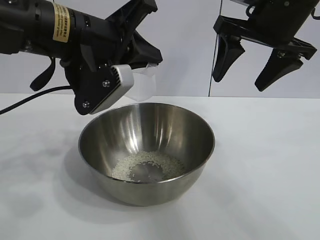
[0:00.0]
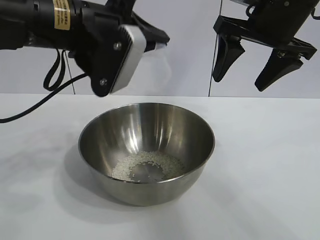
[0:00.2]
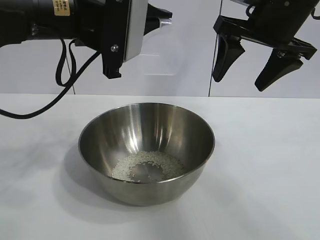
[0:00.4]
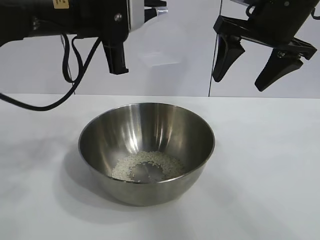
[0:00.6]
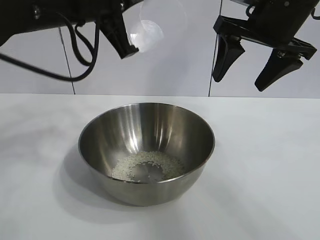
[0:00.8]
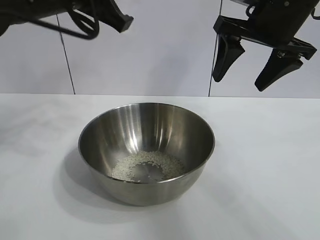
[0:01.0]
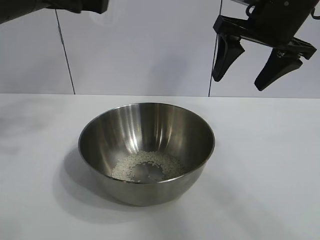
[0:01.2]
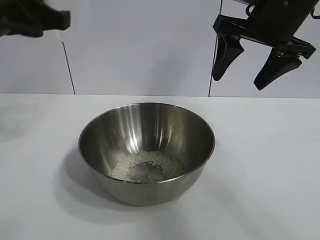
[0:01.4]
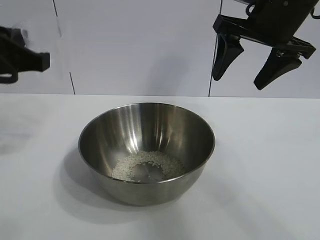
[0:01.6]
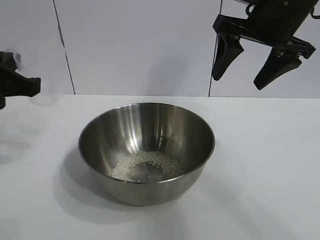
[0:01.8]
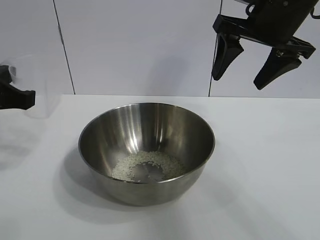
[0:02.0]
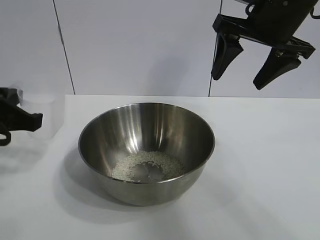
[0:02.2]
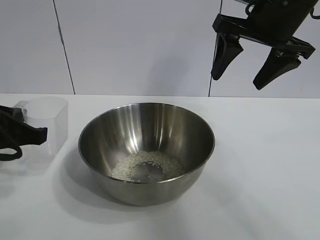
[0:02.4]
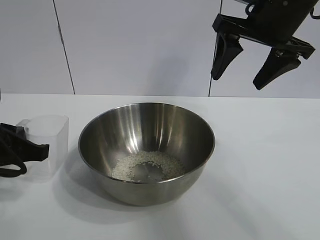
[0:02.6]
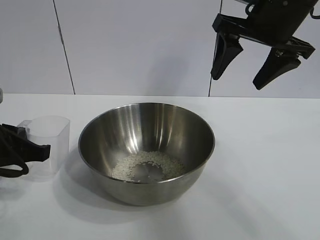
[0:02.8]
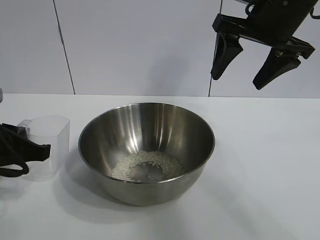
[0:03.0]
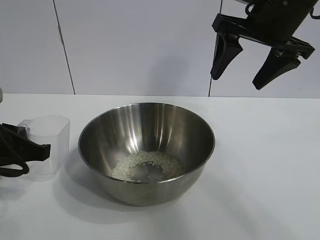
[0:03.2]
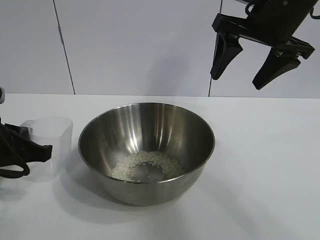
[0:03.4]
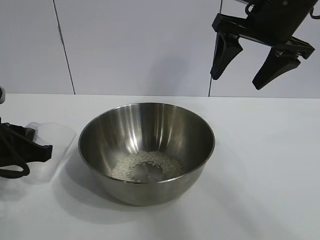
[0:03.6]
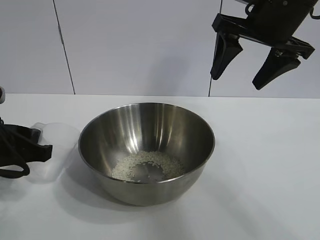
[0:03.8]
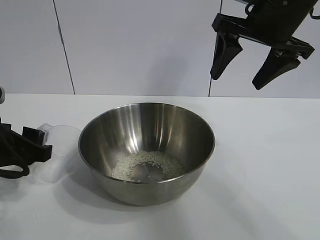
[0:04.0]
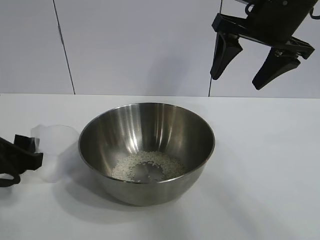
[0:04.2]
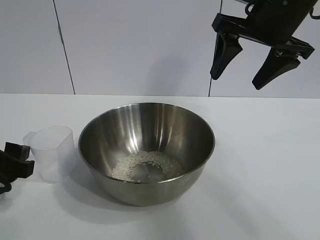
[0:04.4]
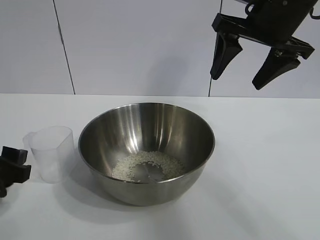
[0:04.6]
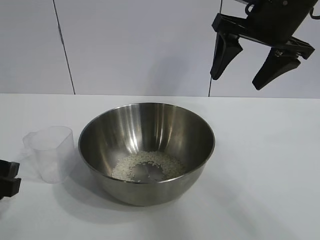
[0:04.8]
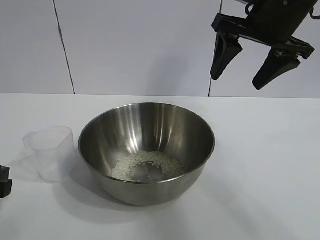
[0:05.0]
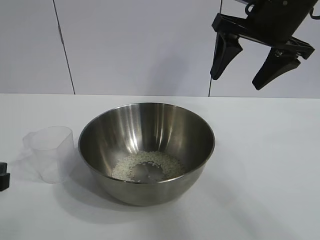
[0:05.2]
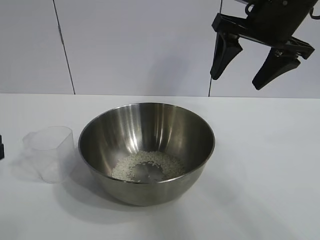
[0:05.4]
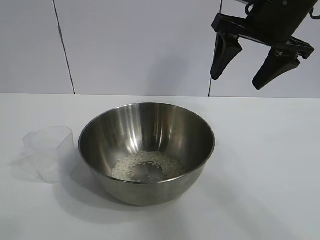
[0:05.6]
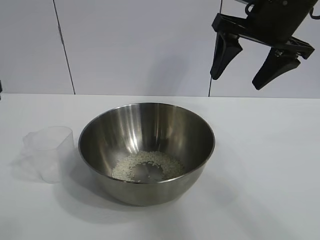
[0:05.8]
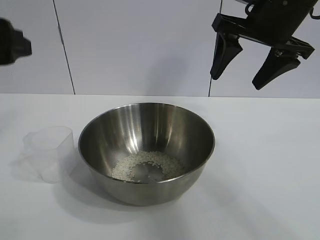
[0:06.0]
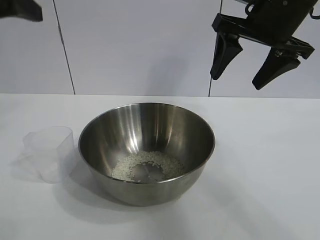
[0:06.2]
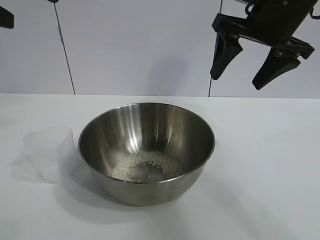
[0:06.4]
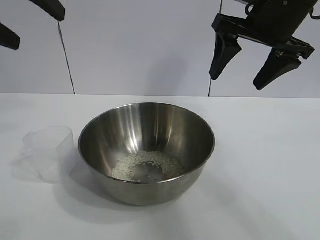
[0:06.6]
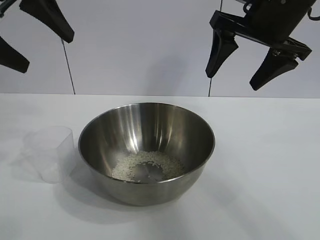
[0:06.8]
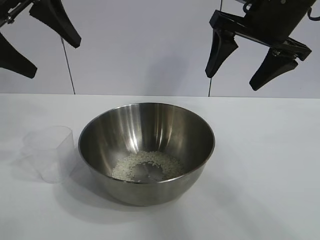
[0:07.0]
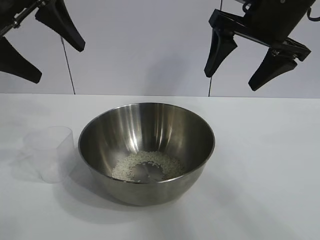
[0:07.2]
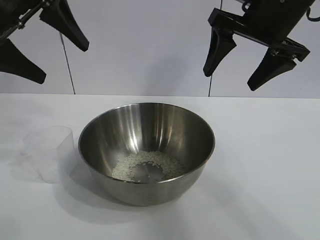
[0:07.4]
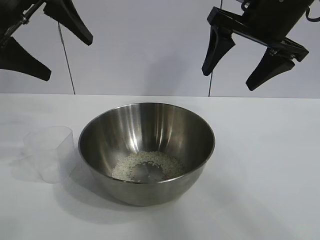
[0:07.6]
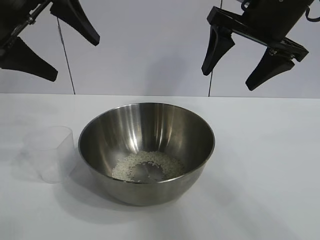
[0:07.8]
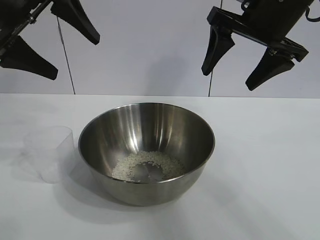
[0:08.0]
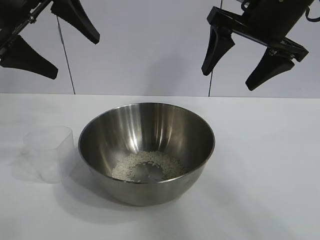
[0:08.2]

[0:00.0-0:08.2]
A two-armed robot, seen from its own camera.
Task of the whole recording: the right gripper grasp the rice container and place it in the center of the table, the left gripper grasp the rice scoop and pour the rice into the rice container.
Step, 0:00.0 to 0:04.4: Place the cup on the table with the left gripper.

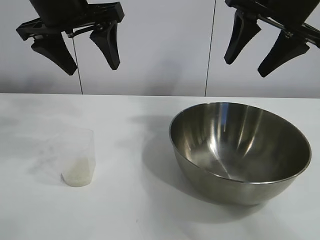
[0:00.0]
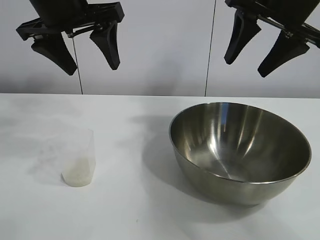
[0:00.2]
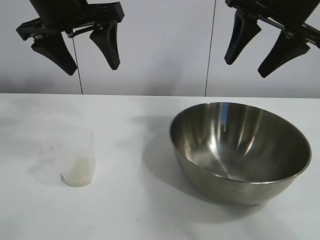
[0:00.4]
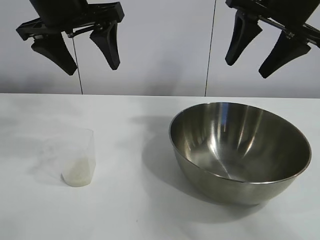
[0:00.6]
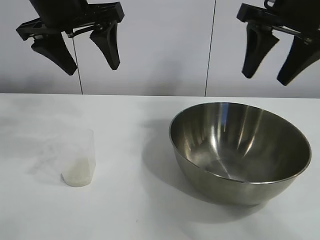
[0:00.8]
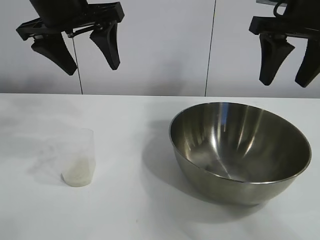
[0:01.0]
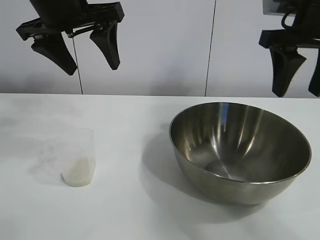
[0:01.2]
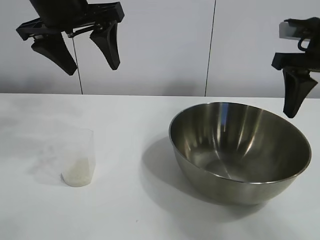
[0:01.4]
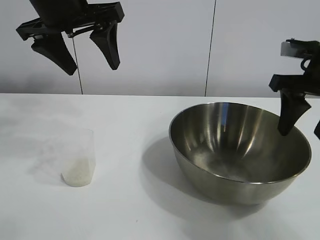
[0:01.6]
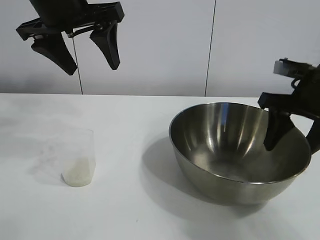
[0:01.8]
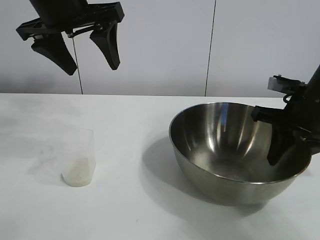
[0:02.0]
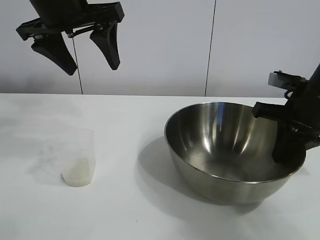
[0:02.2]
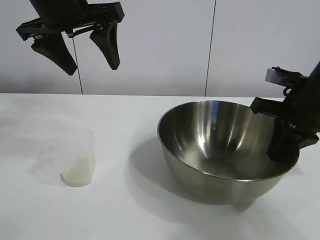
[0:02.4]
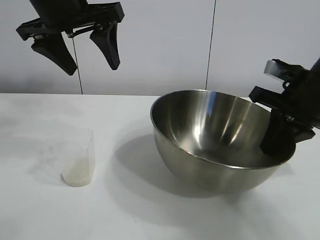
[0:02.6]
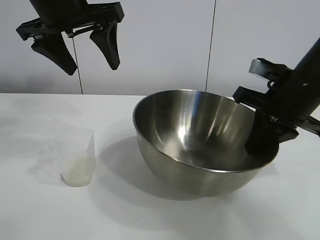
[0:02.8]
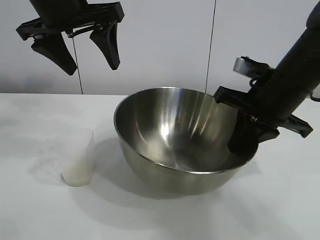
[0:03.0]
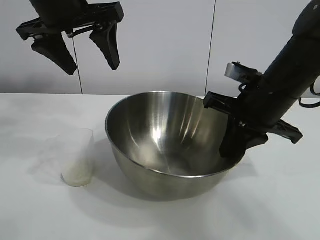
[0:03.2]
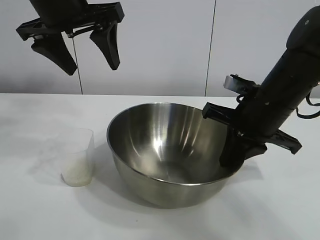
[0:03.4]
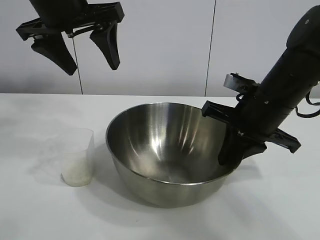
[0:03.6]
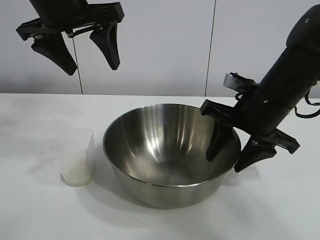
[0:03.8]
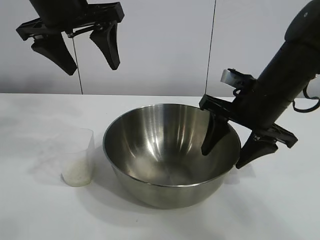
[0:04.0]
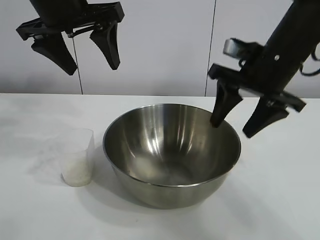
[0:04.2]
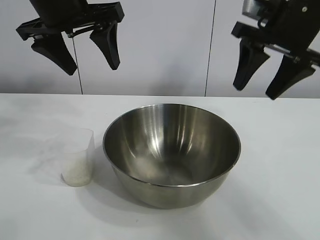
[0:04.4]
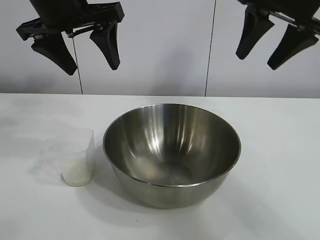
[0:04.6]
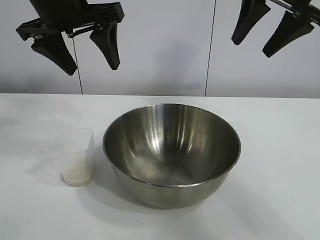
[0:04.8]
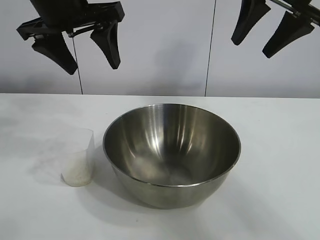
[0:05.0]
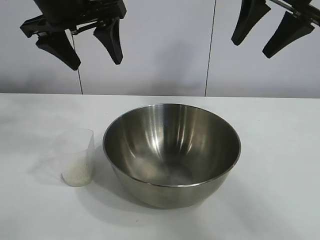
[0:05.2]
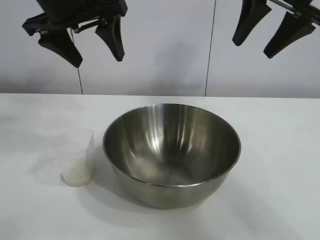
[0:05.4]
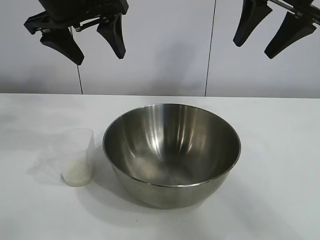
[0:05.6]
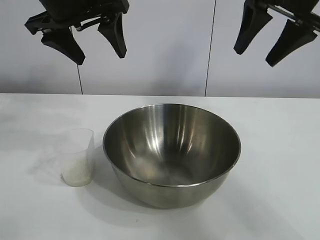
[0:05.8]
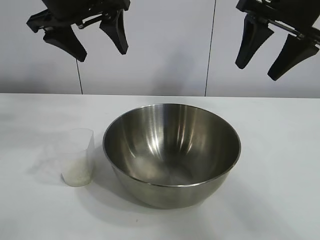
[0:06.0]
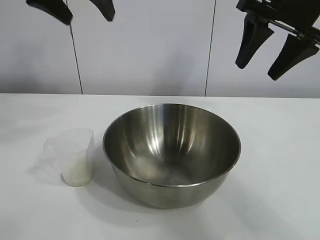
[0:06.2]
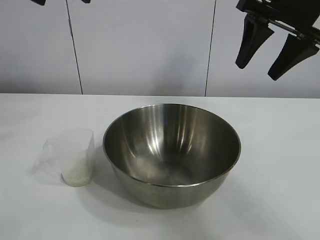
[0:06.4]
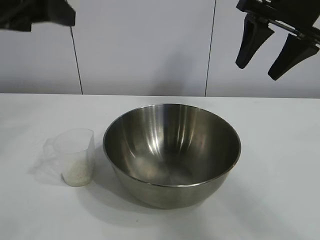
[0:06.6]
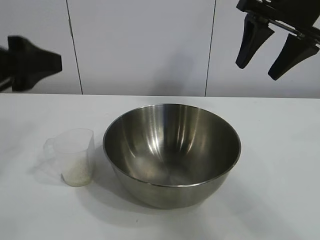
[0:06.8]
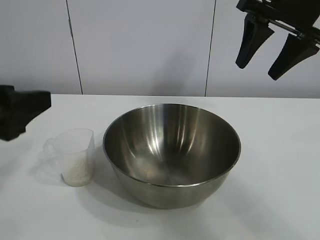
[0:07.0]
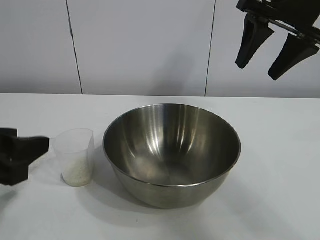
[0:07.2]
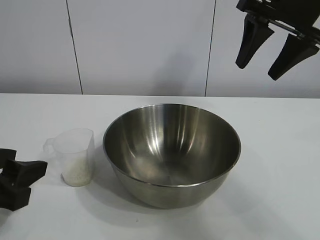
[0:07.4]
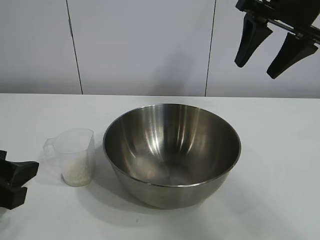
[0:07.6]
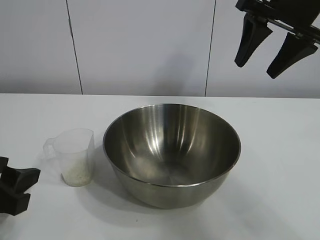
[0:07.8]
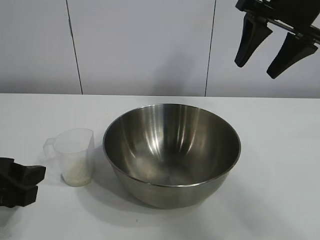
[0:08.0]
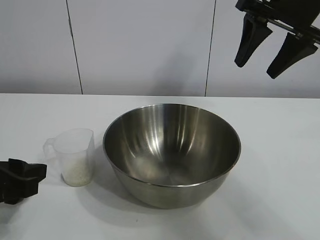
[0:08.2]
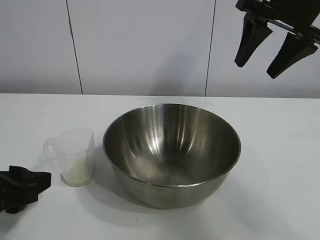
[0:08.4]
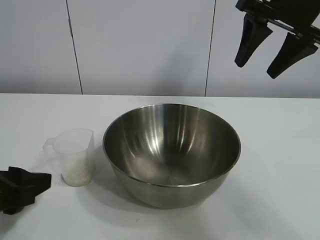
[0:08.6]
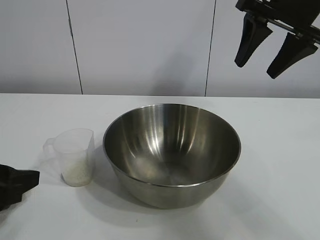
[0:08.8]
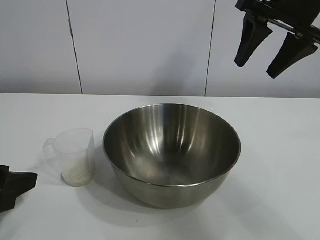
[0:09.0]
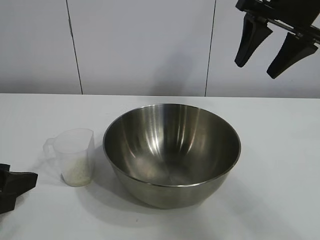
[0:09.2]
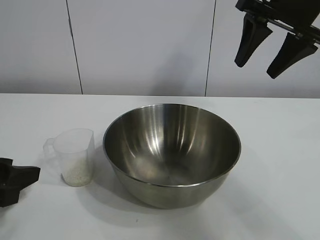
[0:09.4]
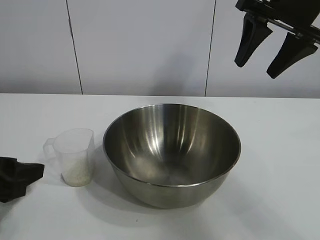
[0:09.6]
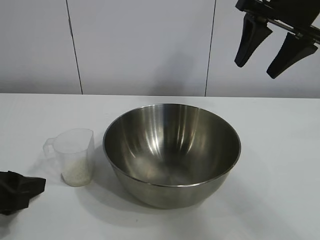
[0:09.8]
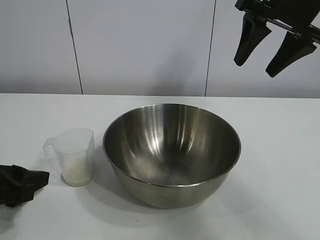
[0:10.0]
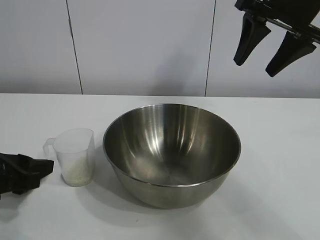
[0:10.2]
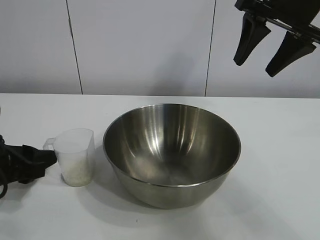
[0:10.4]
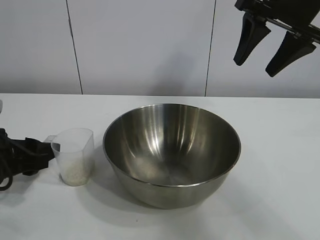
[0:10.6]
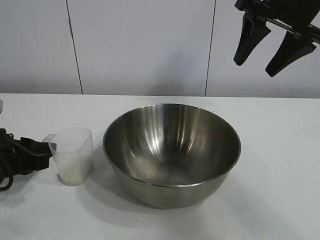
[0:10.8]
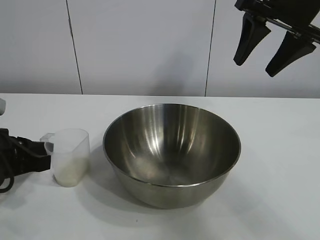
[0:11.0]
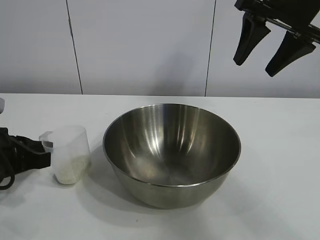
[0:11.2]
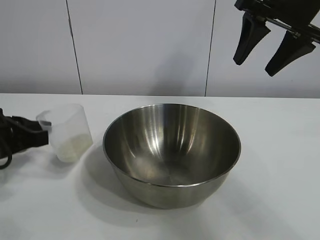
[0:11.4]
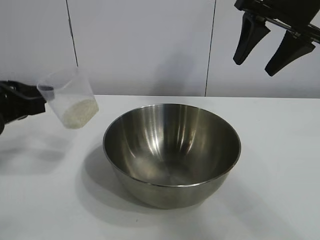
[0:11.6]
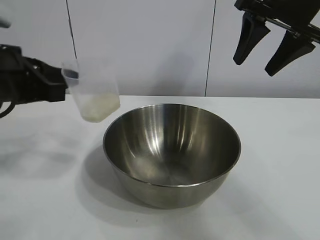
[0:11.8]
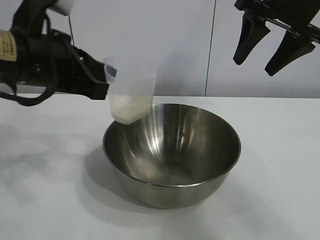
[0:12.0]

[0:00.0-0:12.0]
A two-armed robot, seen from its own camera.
Task of the whole recording: the right gripper grasp the rice container and place it in the center of the table, the left gripper grasp the rice scoop and pour the rice into the rice container.
Step, 0:00.6 to 0:04.0: Move the bowl in the center of view with right gripper.
Step, 0:04.2 to 0:11.0: Grasp the cup with rice in it with left gripper.

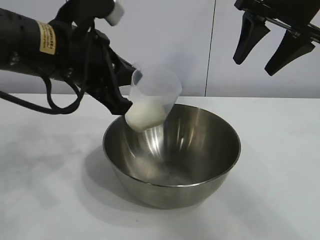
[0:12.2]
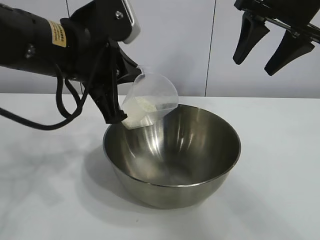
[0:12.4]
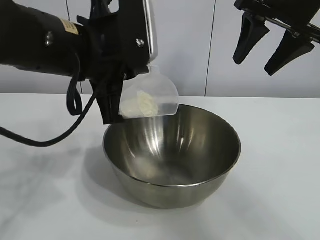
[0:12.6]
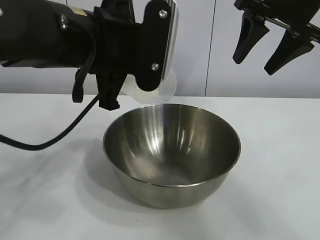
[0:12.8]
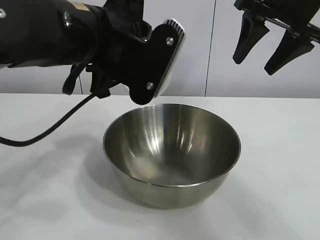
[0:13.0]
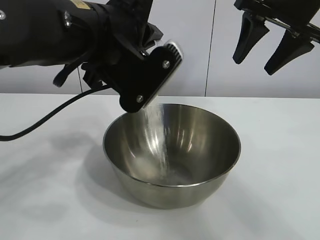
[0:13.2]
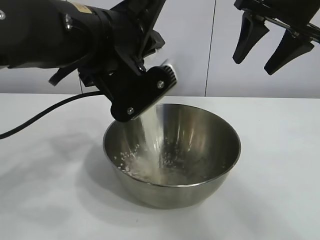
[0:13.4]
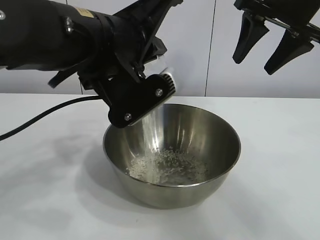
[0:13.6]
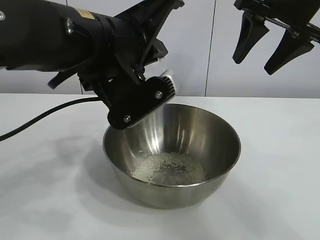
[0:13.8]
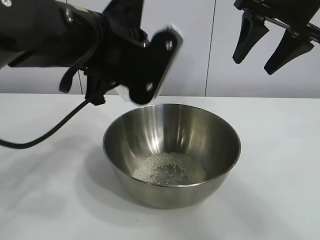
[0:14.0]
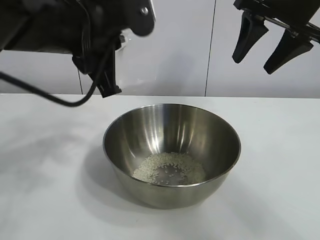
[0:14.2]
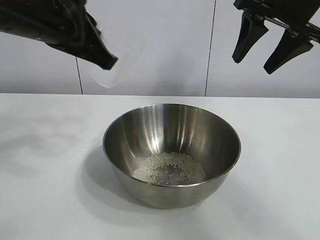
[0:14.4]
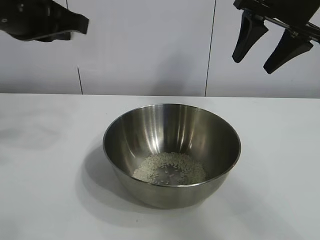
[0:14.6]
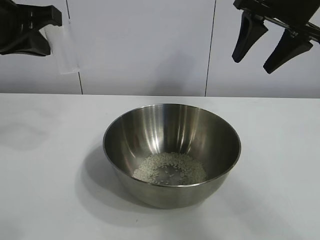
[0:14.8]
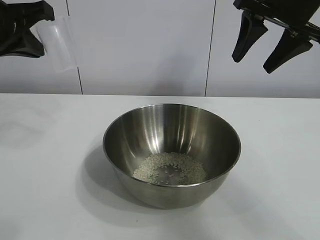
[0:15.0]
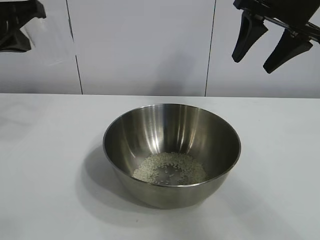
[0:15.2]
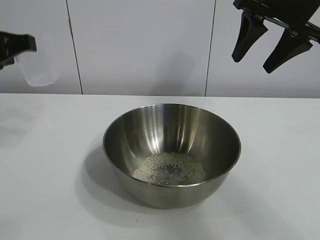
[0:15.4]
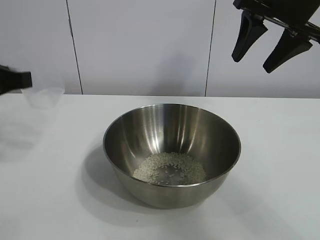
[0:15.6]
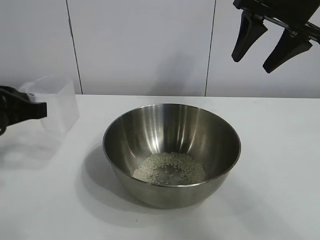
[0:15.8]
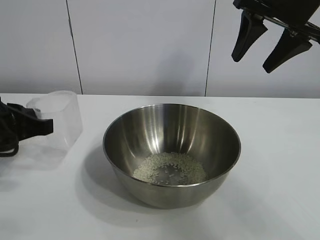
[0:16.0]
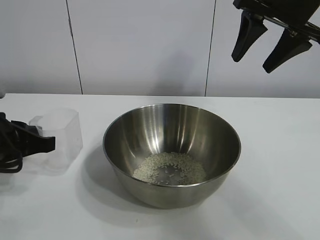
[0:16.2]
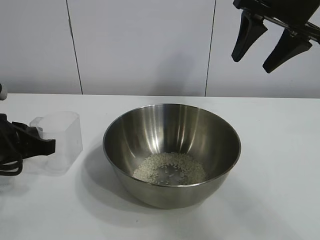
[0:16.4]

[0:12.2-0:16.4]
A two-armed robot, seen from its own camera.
Task of the whole recording: the right gripper grasp the rice container and place it in the center of the table, the left gripper grasp the rice scoop and pour the rice into the rice container.
Step, 0:12.2 to 0:14.0: Pour the rice from the cup into the bowl with the left gripper.
